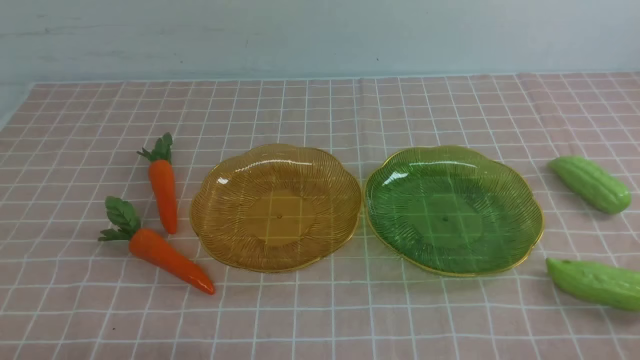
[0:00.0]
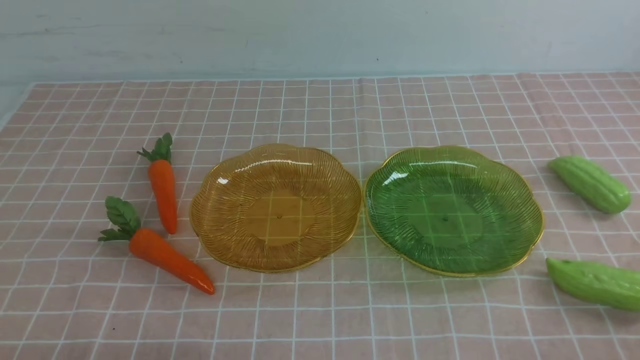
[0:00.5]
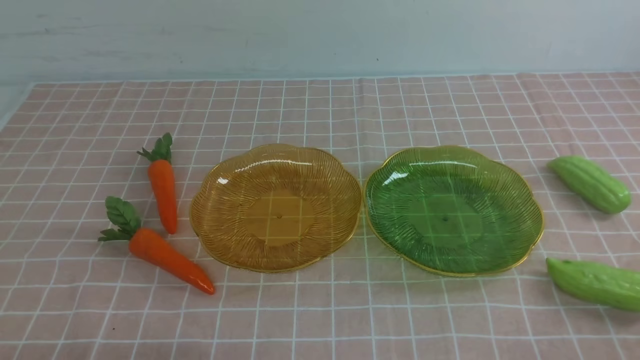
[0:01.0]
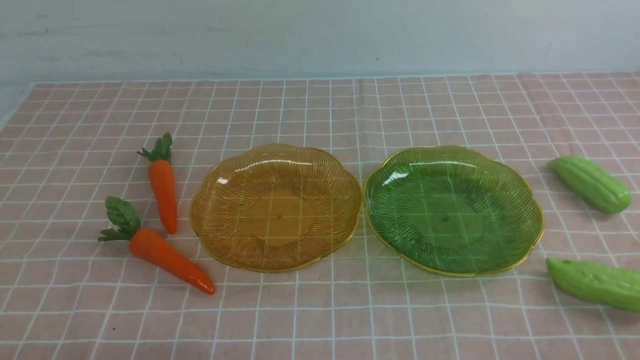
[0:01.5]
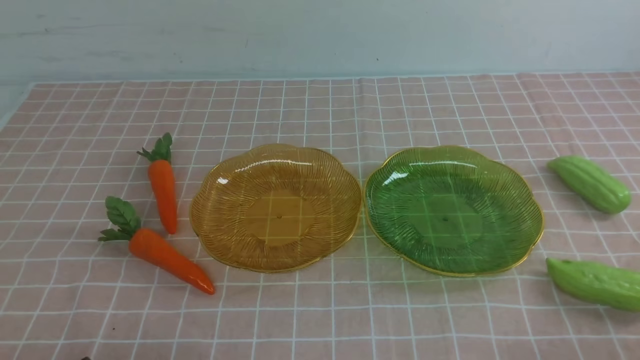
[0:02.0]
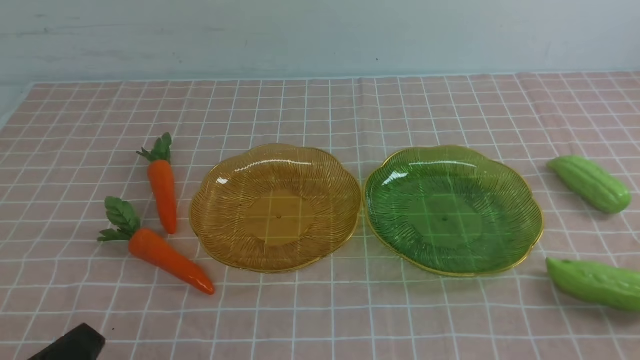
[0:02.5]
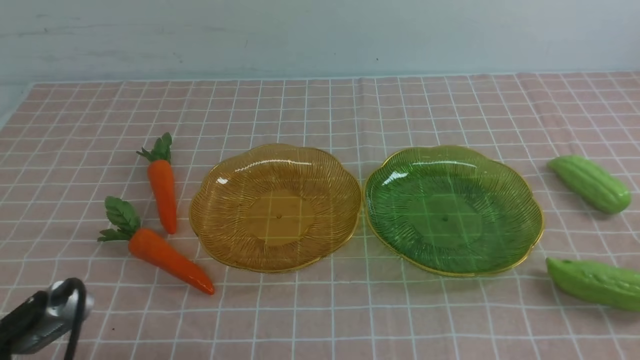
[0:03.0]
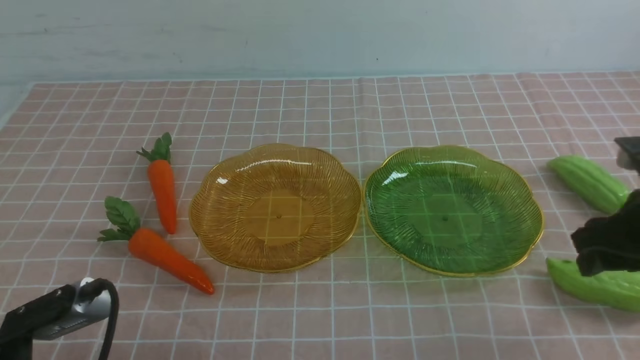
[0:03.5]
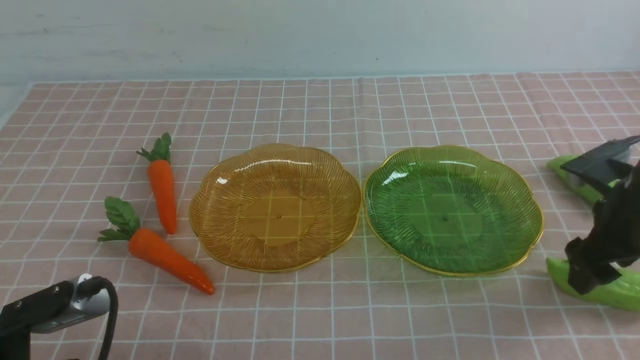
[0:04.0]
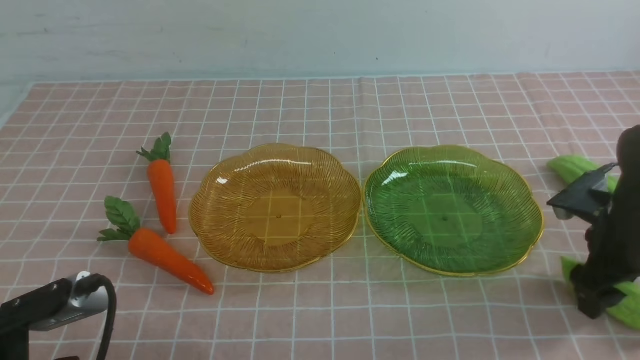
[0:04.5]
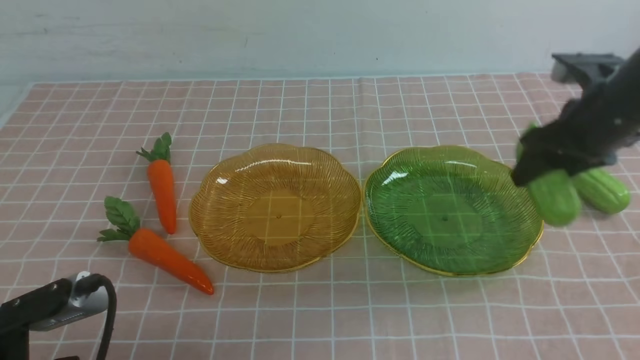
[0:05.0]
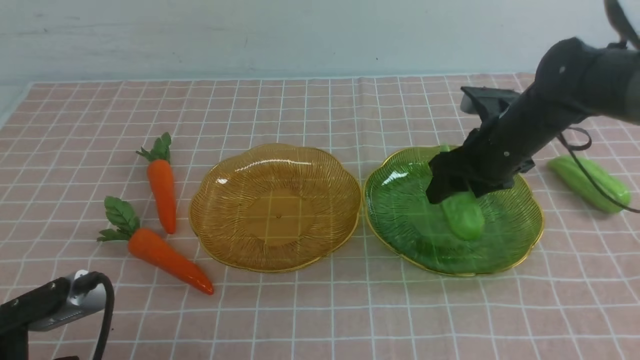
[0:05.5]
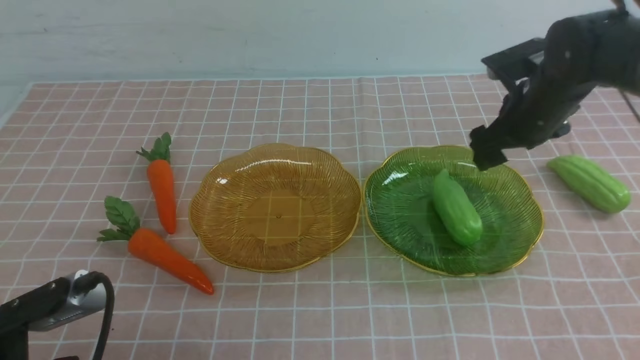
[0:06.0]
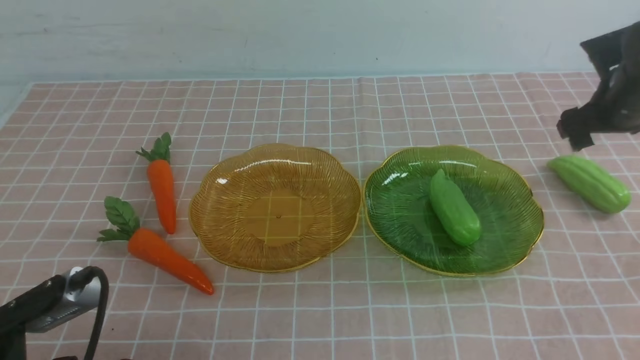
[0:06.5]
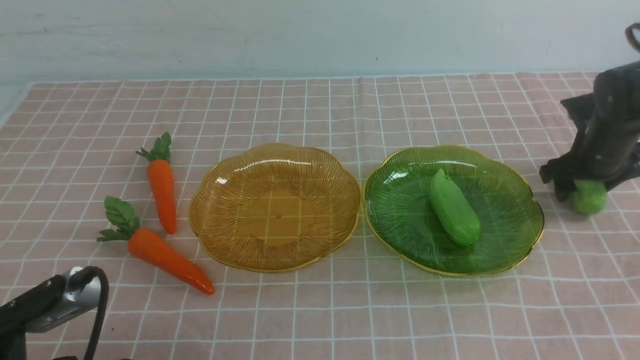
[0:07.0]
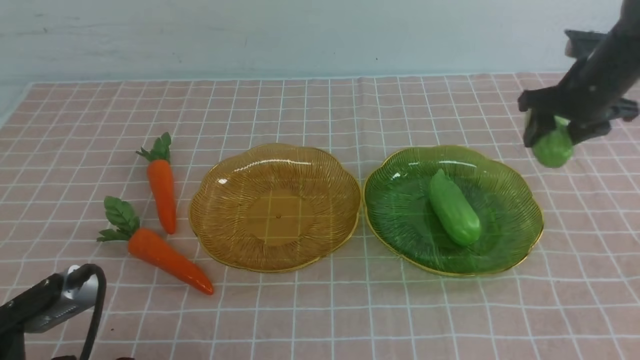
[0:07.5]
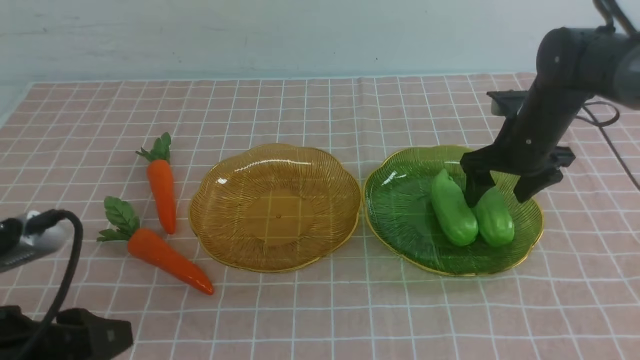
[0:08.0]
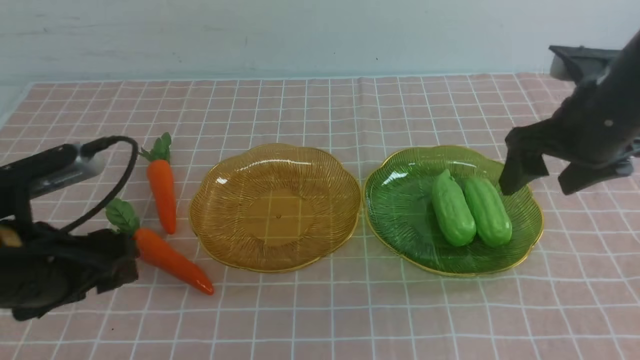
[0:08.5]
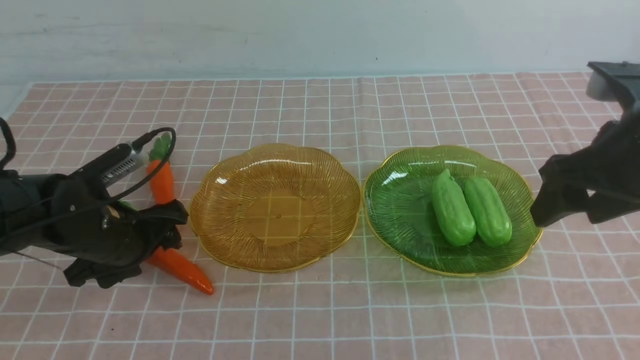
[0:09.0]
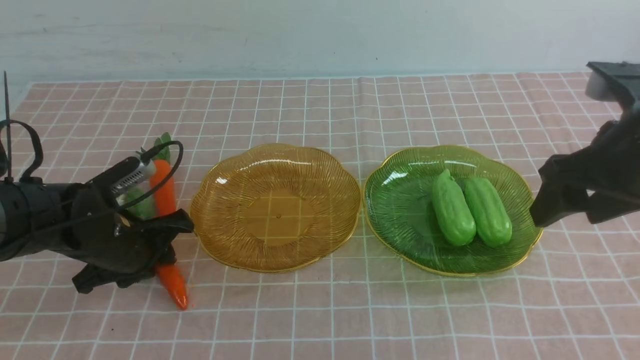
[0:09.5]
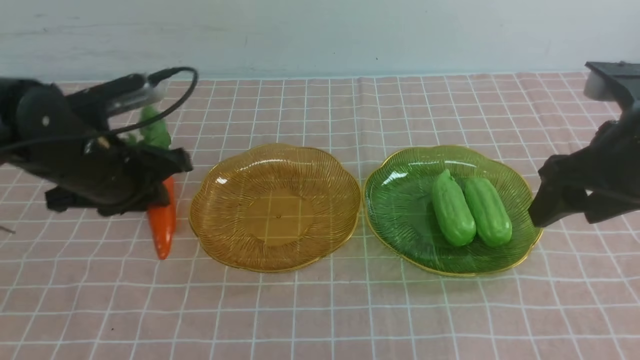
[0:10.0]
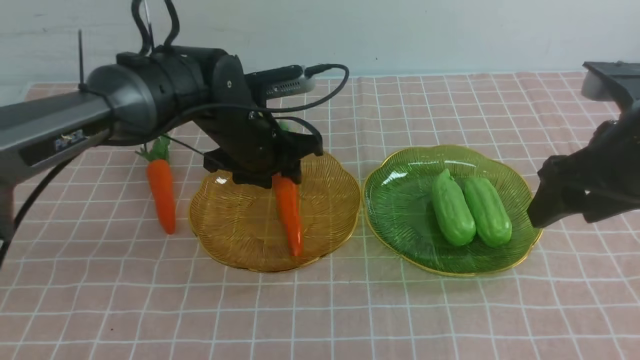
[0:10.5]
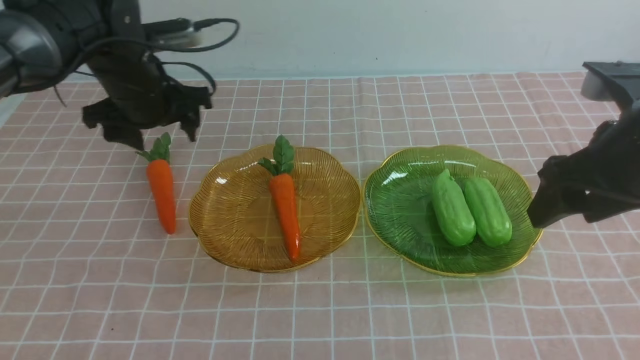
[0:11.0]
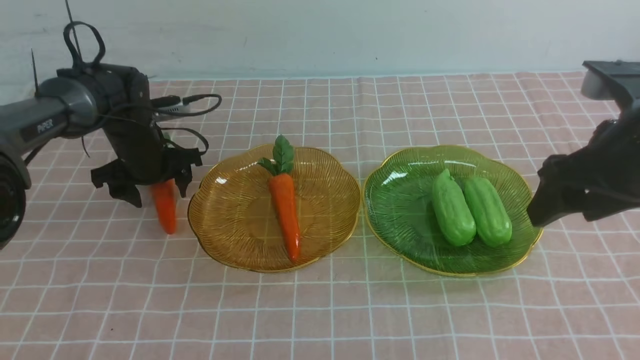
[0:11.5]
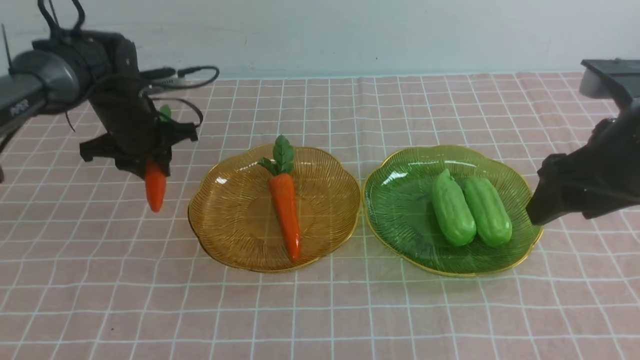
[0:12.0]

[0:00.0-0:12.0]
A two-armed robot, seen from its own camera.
Step, 0:00.0 to 0:08.0: use the right arm to grab a chayote and put it into the right plate.
0:02.0 to 0:04.0: The left gripper changes place by some 10 cm, and opens its fingers, while the right gripper heads forward, covering approximately 25 cm, and opens.
0:04.0 to 0:06.0: The right gripper is displaced forward and to the left by about 15 cm.
0:06.0 to 0:08.0: The right gripper goes to the right and returns, approximately 10 cm each way.
0:08.0 to 0:10.0: The left gripper shifts roughly 20 cm forward, and closes up; the right gripper is displaced backward and upward by about 20 cm.
0:10.0 to 0:12.0: The left gripper shifts approximately 15 cm forward, and opens, then closes once more.

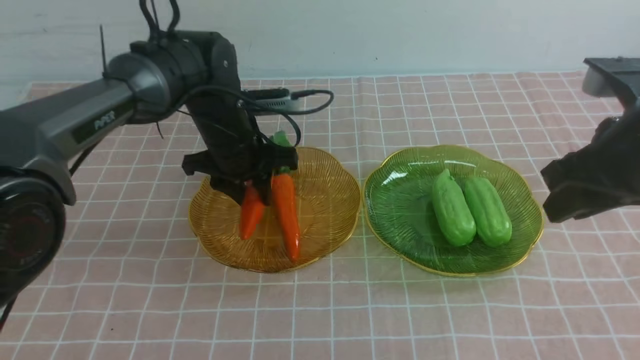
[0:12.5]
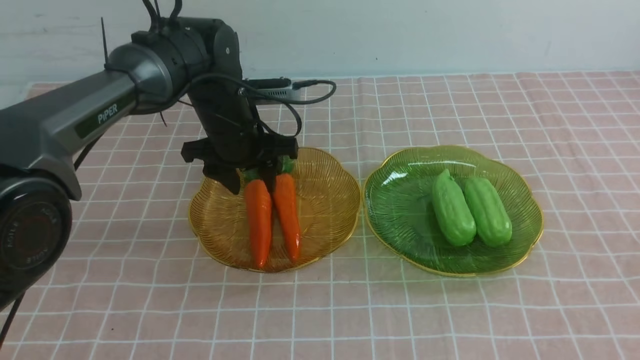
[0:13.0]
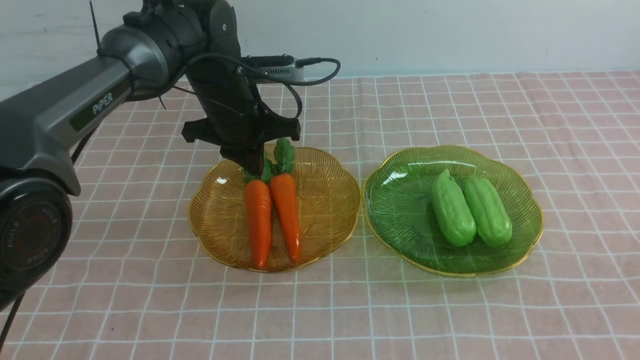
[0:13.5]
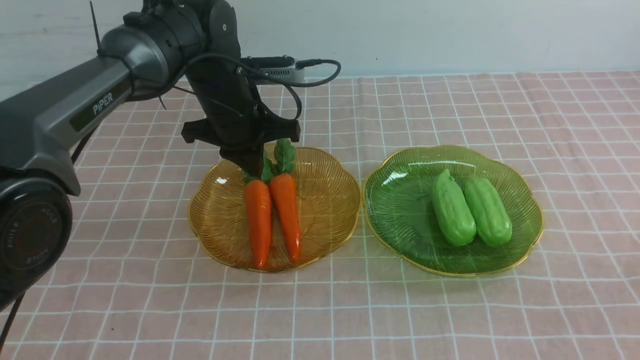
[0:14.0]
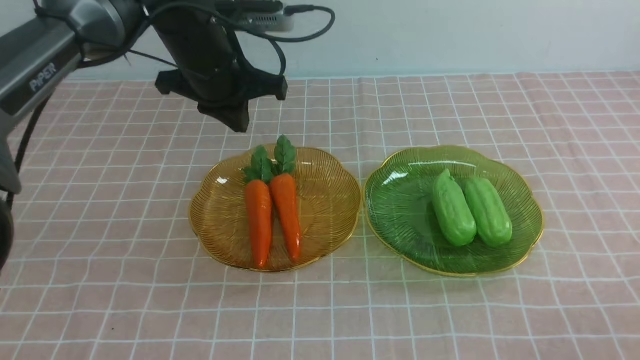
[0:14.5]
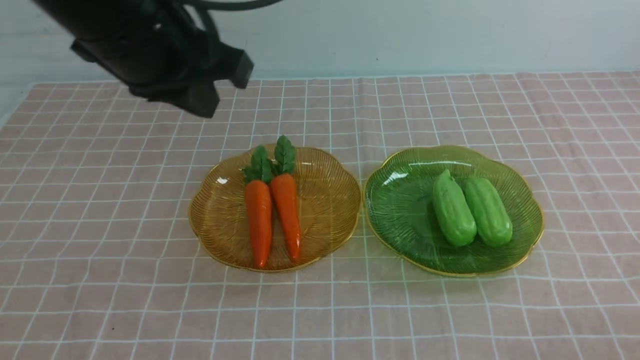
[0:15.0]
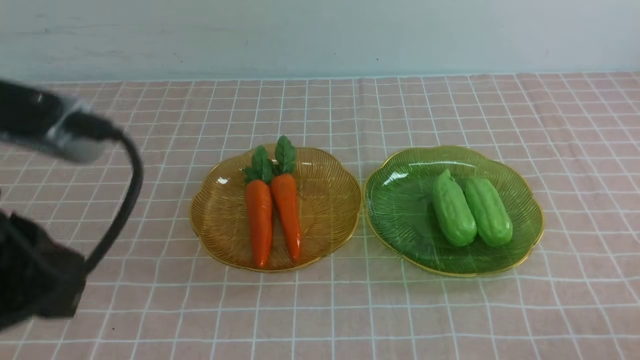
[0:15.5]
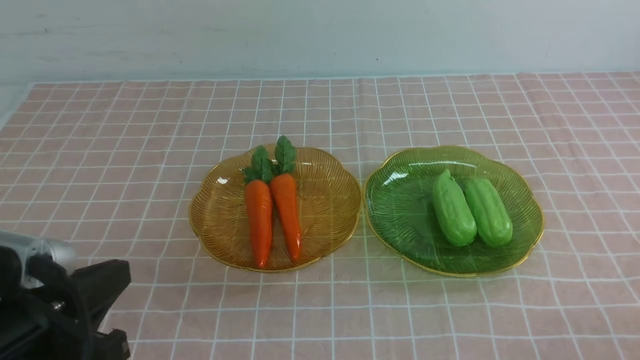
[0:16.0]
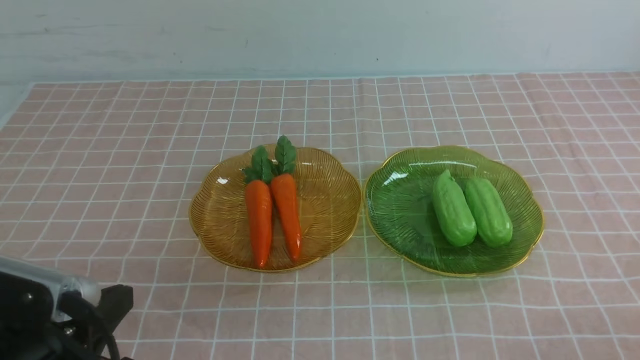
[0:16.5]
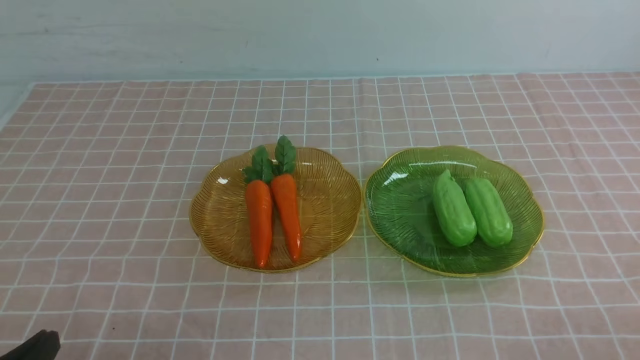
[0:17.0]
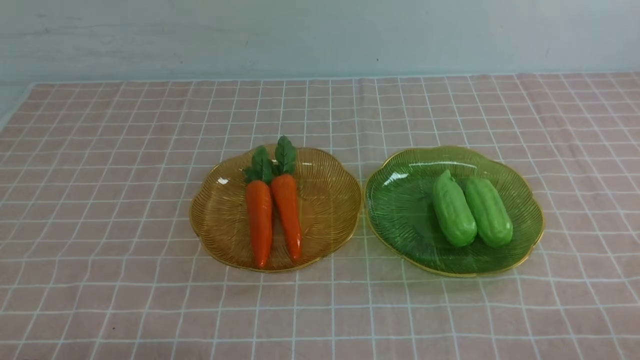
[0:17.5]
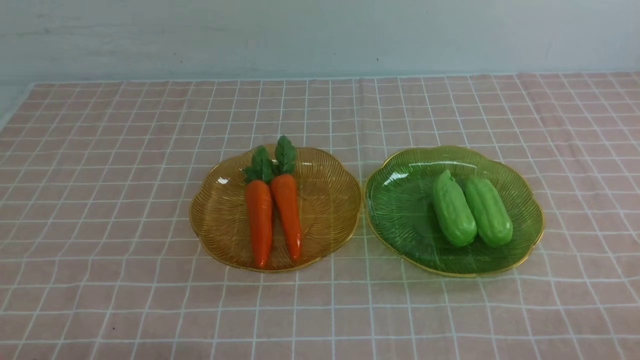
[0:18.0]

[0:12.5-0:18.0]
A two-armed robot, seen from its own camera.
0:12.5 to 0:14.5: The left gripper goes about 30 cm backward and upward, and closes up. Meanwhile the right gripper is displaced downward and backward by some 25 cm.
0:14.5 to 0:16.0: The left gripper travels downward and backward by about 25 cm.
0:16.0 to 0:18.0: The left gripper goes roughly 5 cm downward.

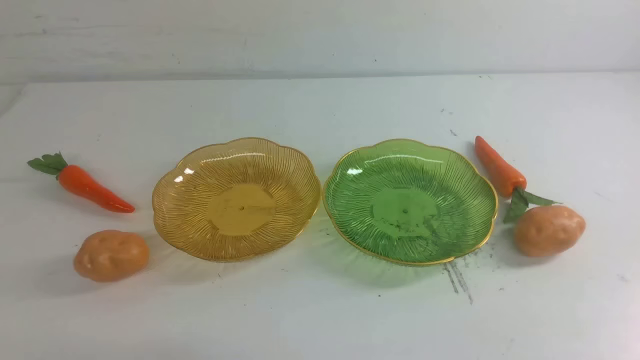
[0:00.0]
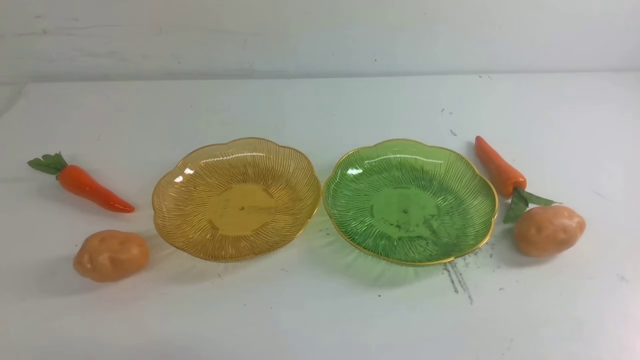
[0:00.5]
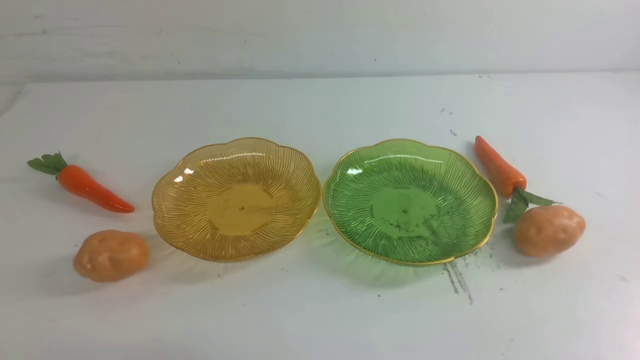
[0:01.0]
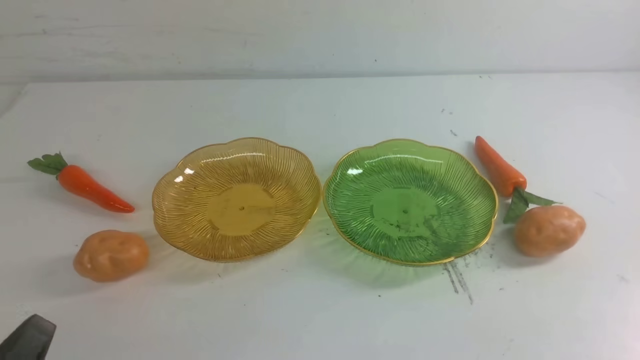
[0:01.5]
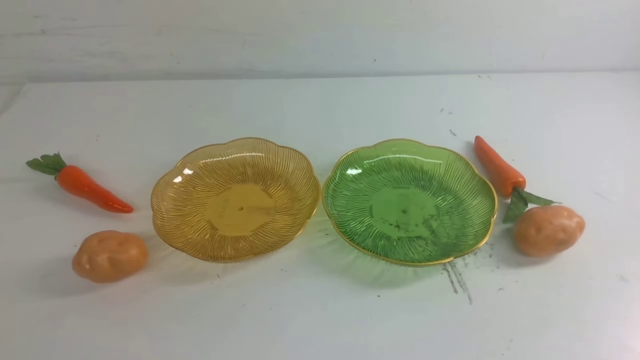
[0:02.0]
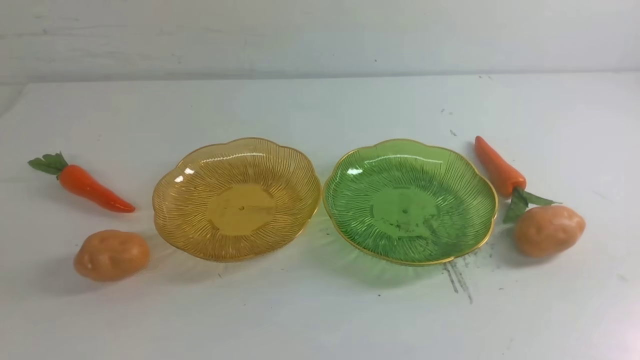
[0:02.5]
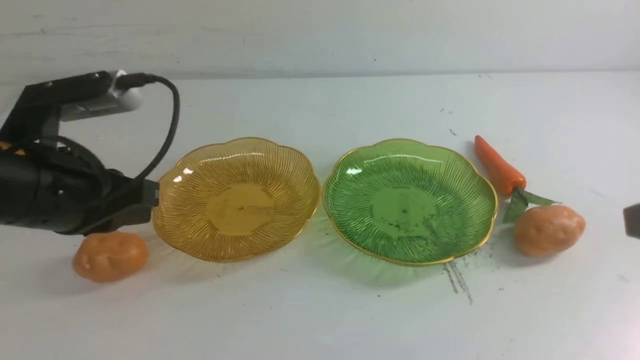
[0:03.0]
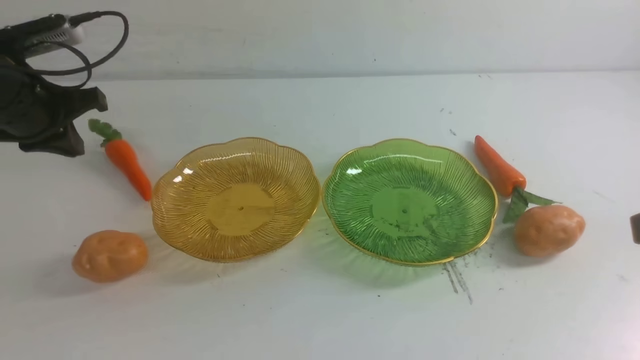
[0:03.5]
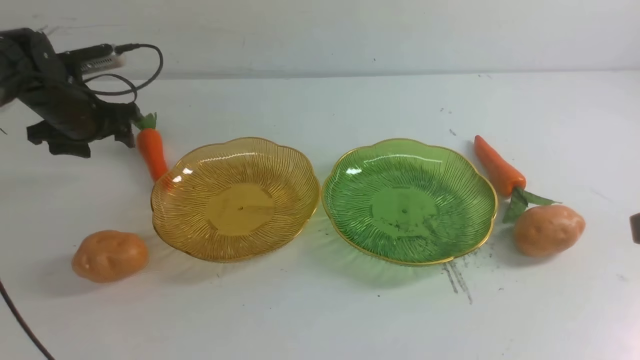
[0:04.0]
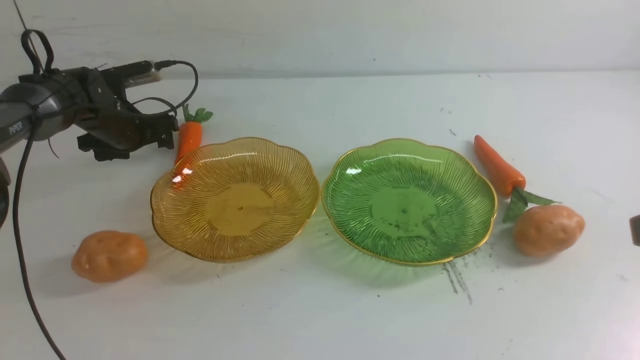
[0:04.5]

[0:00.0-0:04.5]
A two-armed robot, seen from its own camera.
0:02.0 to 0:04.5: The left gripper is displaced forward by about 50 cm, and opens up.
